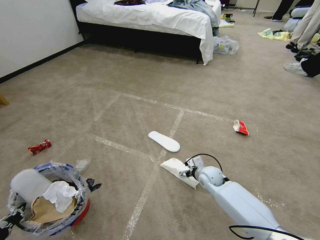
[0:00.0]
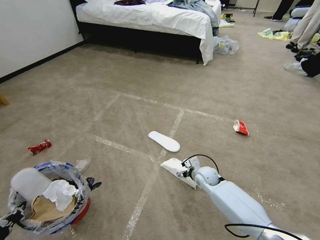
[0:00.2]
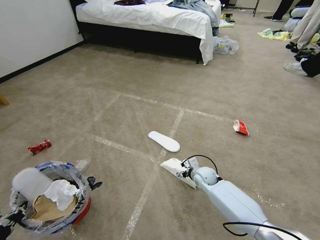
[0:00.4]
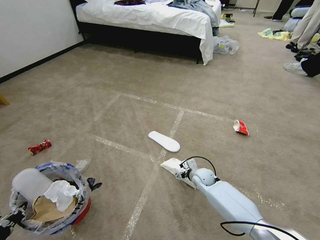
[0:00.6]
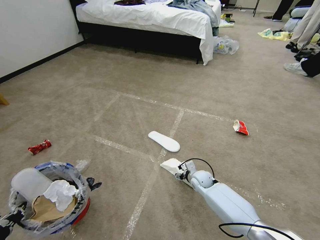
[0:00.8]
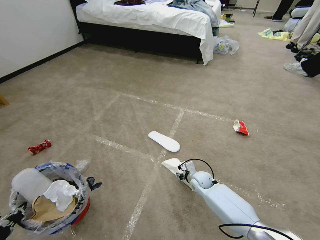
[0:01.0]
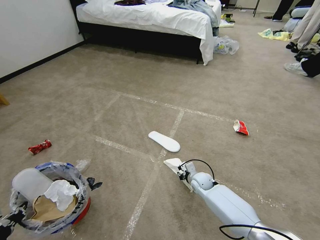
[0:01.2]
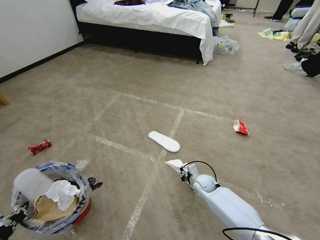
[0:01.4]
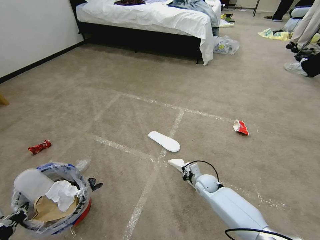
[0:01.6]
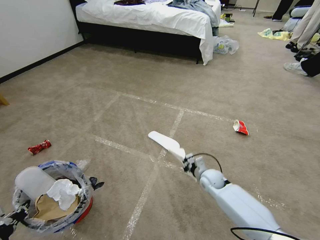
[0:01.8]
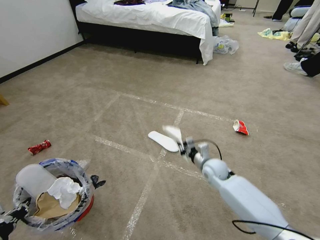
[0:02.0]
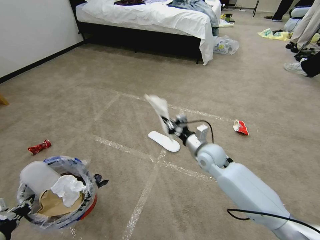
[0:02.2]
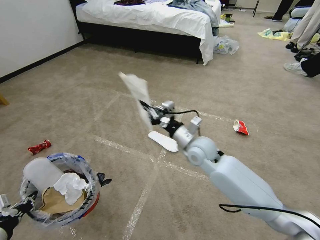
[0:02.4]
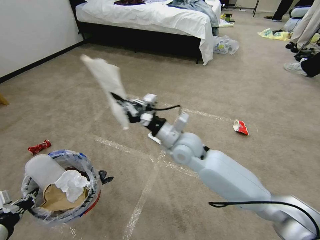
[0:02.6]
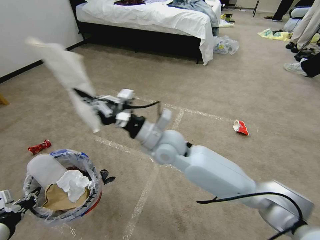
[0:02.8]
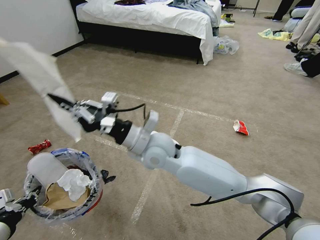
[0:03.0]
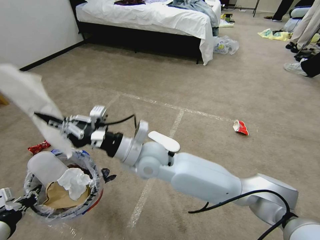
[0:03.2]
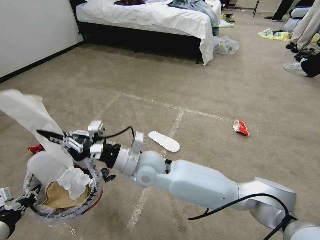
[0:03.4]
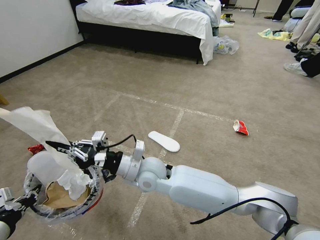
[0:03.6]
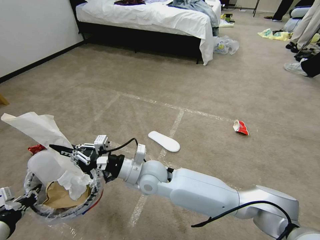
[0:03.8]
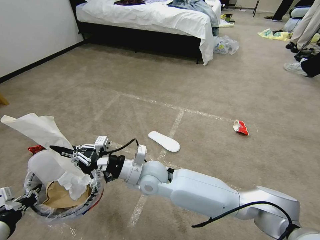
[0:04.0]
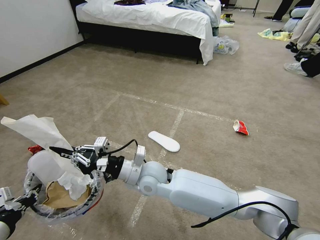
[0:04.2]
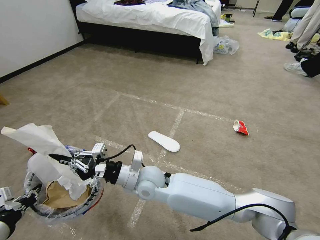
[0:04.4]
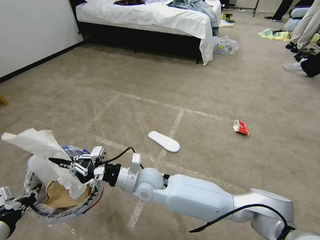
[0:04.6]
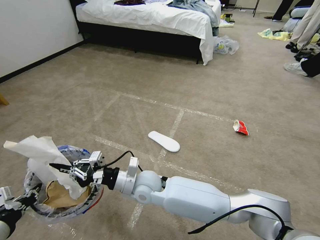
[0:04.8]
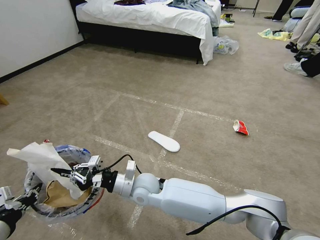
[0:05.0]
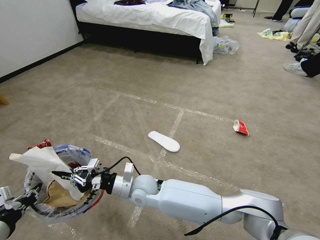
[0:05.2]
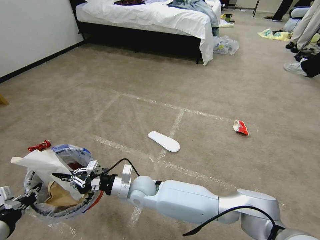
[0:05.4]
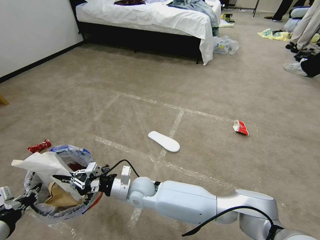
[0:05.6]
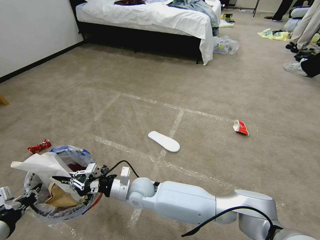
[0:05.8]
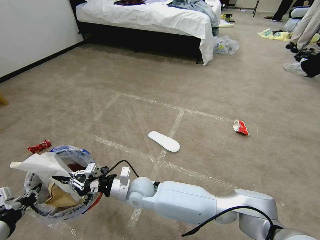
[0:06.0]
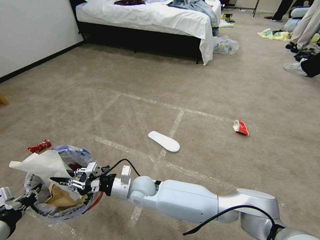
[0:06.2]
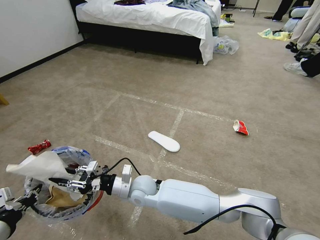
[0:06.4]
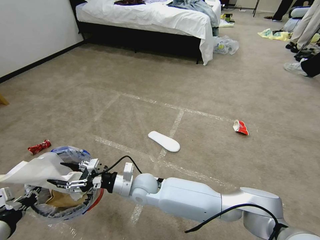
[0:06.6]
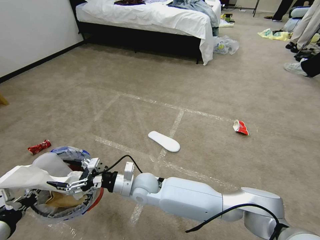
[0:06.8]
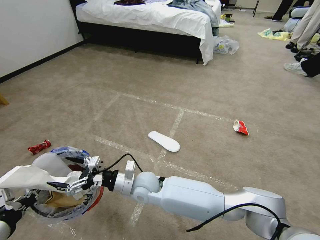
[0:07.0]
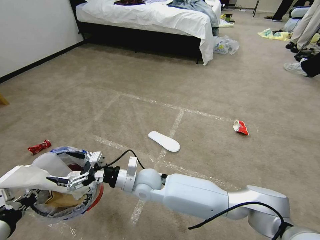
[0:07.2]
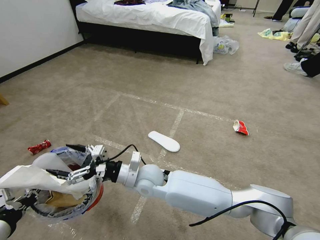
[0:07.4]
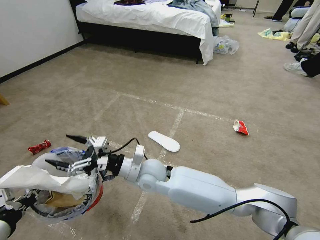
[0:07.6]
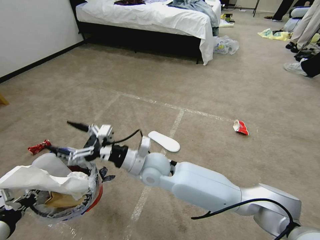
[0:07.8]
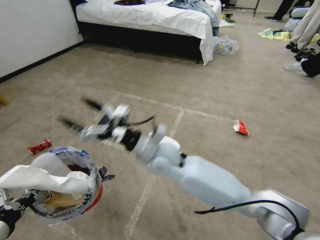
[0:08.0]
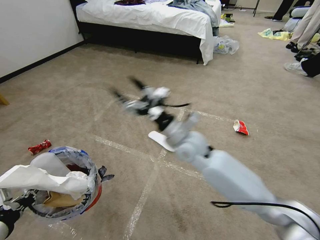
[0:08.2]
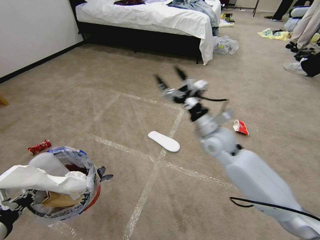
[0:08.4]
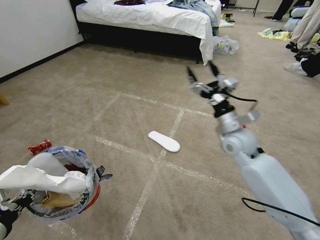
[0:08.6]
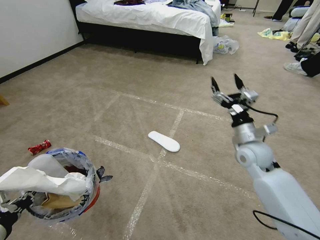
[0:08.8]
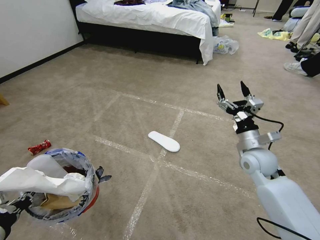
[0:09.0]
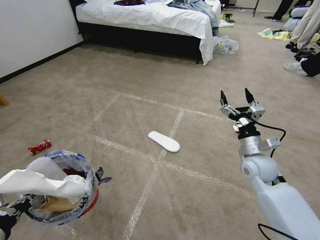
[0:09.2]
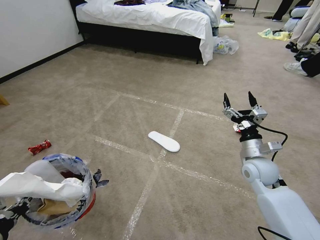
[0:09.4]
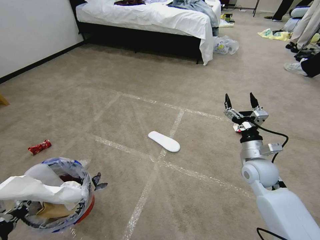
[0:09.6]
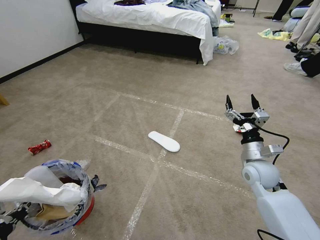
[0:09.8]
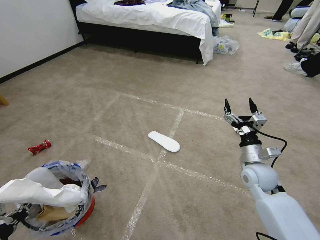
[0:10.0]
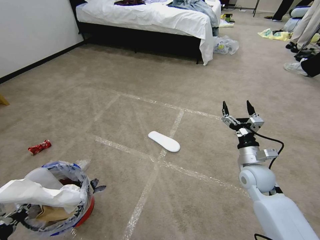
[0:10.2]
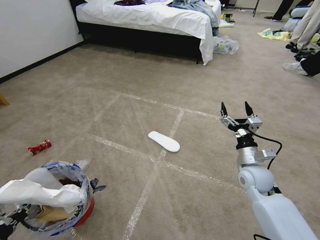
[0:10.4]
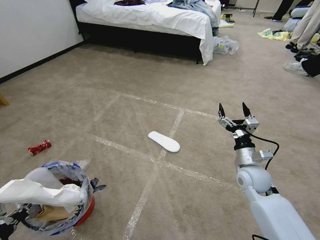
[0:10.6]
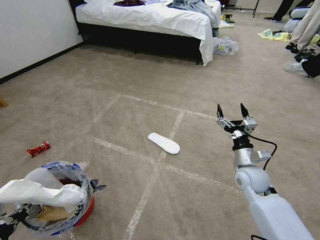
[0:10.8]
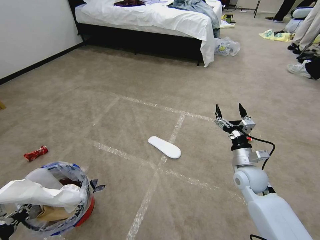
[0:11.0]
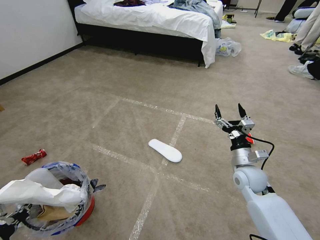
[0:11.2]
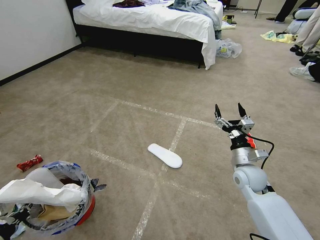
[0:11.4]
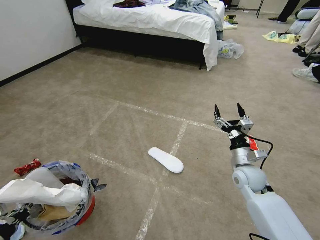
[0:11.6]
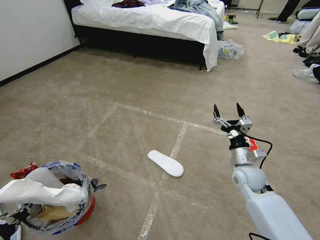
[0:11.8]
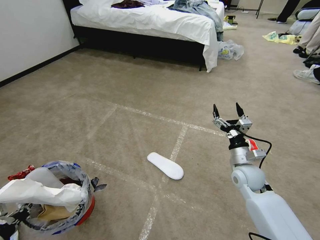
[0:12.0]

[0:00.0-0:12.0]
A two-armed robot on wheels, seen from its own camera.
Task of the whole recording: Pick up the trash bin and place the garbage on the floor into it.
0:00.0 to 0:01.6: The right gripper heads downward, covering about 5 cm, and closes.
0:01.6 to 0:03.0: The right gripper travels upward and to the left by some 40 cm, while the left gripper changes place by roughly 5 cm.
0:03.0 to 0:04.4: The right gripper is displaced downward by some 10 cm.
0:04.4 to 0:06.0: The right gripper moves downward, roughly 10 cm.
0:06.0 to 0:07.6: The right gripper goes approximately 10 cm upward, and opens.
0:07.6 to 0:09.0: The right gripper goes about 35 cm to the right.
0:09.0 to 0:10.4: The right gripper goes about 5 cm downward.

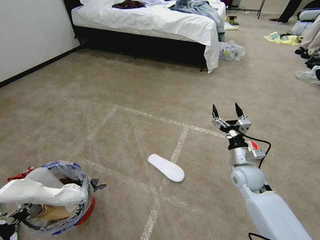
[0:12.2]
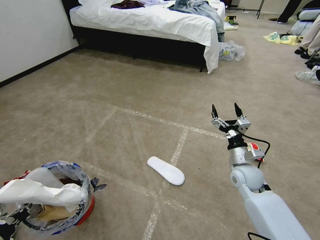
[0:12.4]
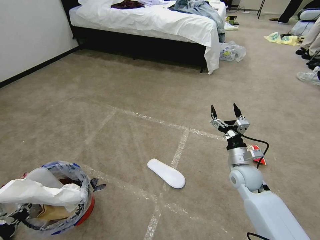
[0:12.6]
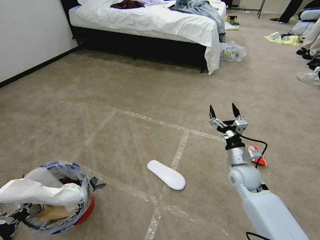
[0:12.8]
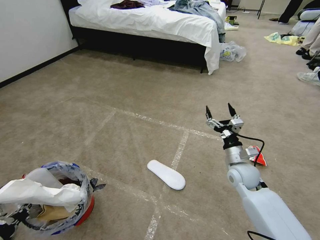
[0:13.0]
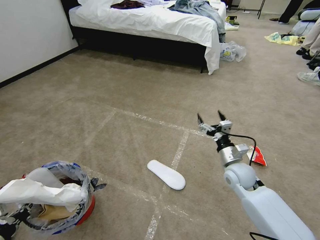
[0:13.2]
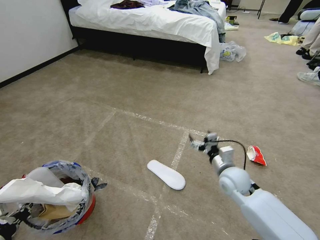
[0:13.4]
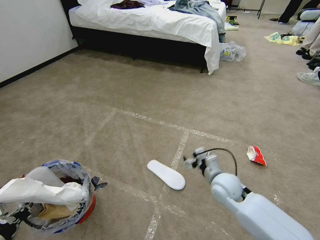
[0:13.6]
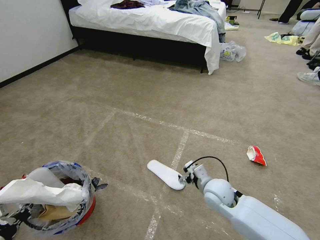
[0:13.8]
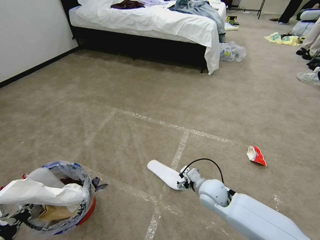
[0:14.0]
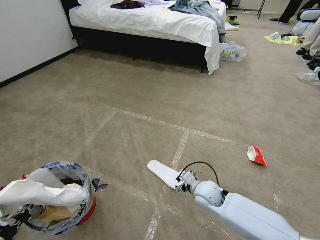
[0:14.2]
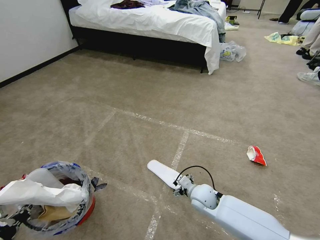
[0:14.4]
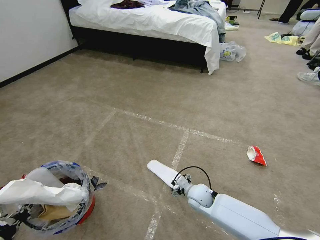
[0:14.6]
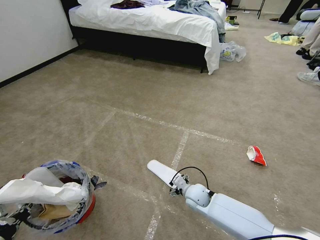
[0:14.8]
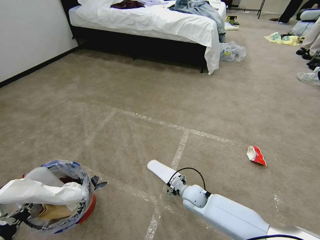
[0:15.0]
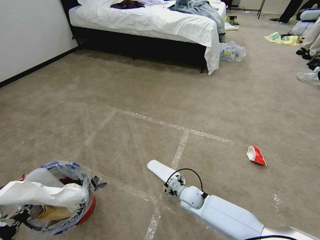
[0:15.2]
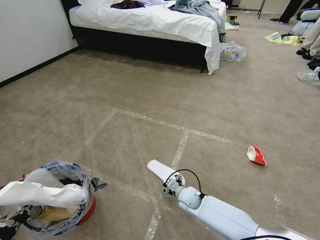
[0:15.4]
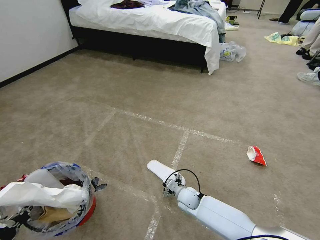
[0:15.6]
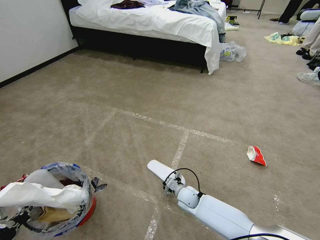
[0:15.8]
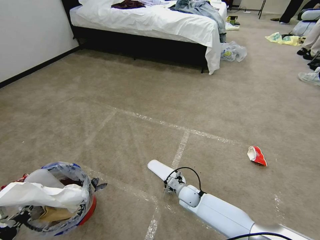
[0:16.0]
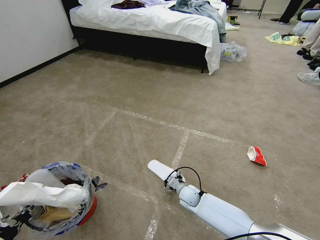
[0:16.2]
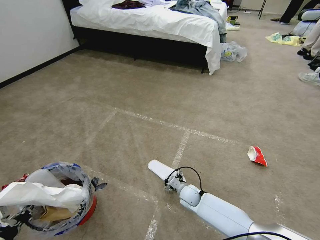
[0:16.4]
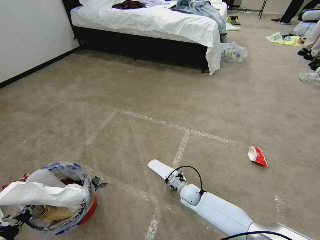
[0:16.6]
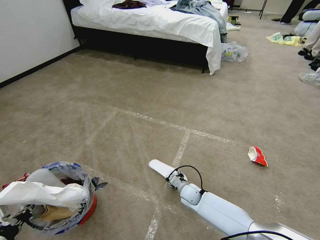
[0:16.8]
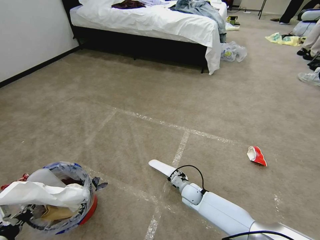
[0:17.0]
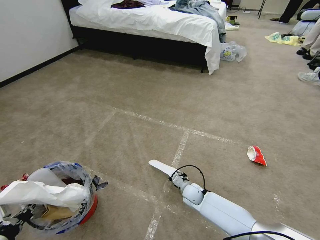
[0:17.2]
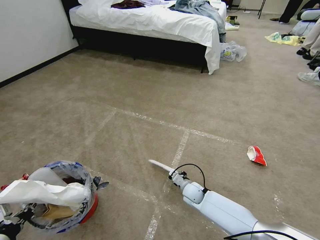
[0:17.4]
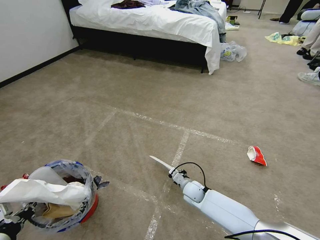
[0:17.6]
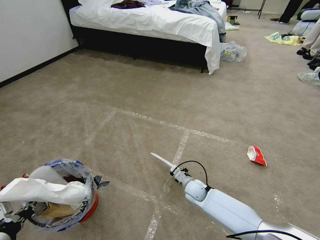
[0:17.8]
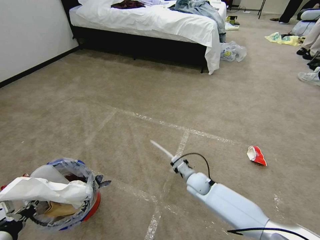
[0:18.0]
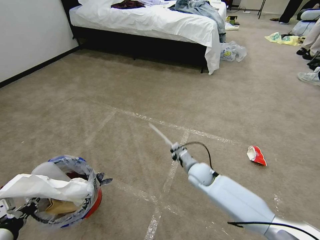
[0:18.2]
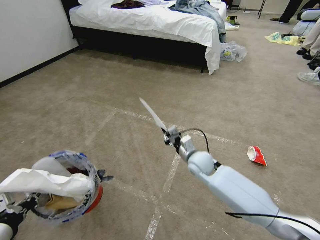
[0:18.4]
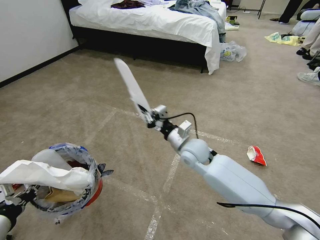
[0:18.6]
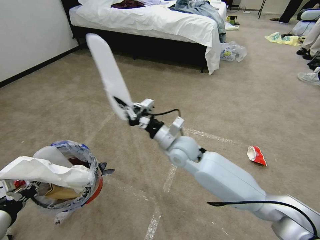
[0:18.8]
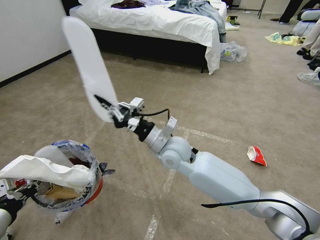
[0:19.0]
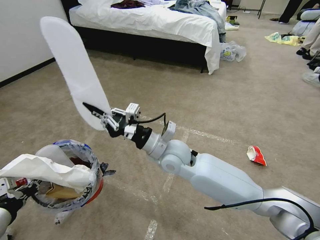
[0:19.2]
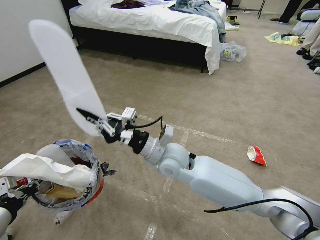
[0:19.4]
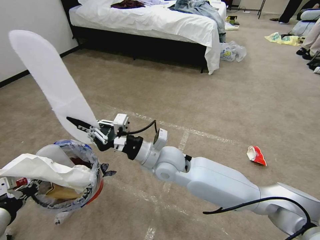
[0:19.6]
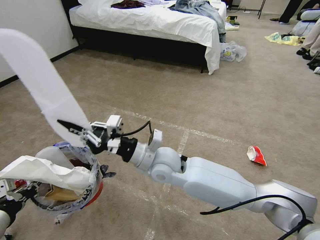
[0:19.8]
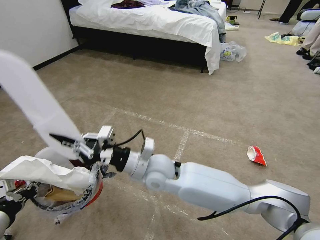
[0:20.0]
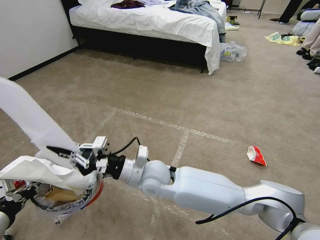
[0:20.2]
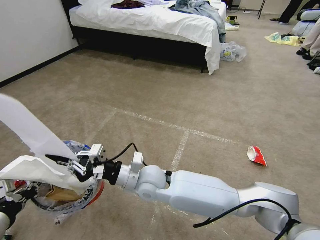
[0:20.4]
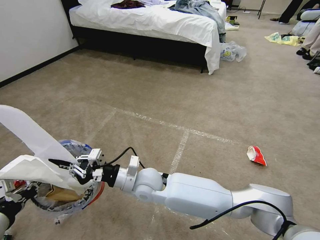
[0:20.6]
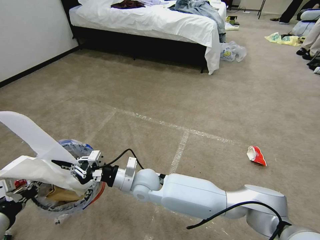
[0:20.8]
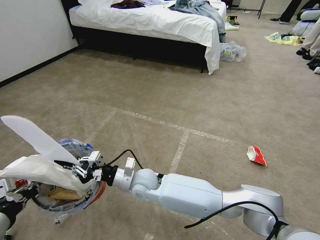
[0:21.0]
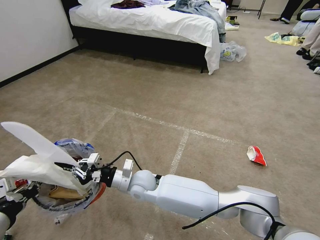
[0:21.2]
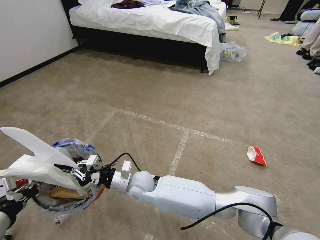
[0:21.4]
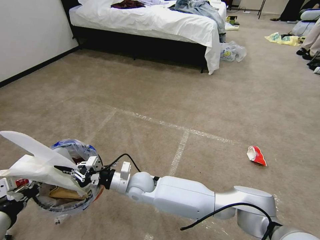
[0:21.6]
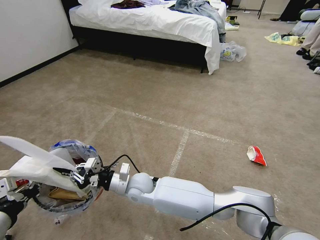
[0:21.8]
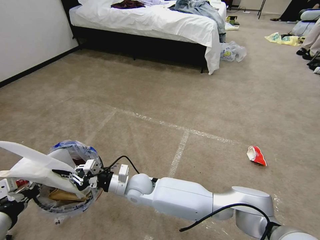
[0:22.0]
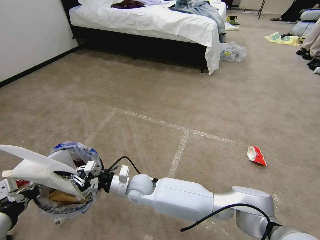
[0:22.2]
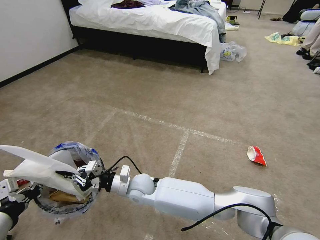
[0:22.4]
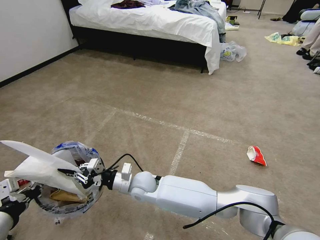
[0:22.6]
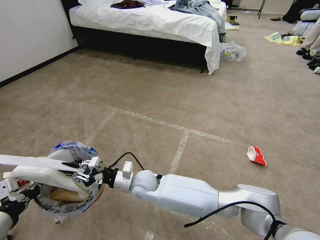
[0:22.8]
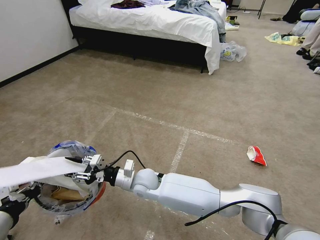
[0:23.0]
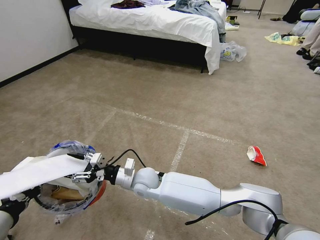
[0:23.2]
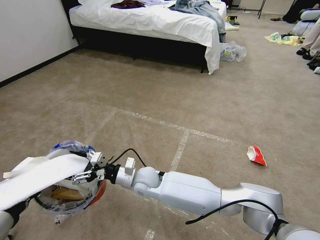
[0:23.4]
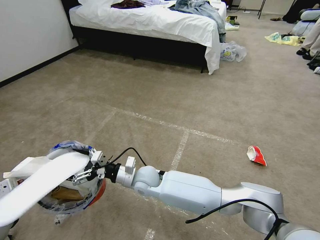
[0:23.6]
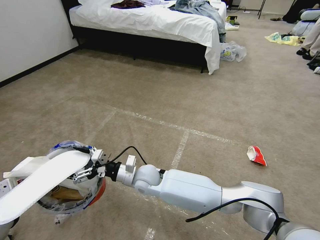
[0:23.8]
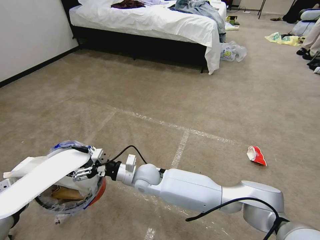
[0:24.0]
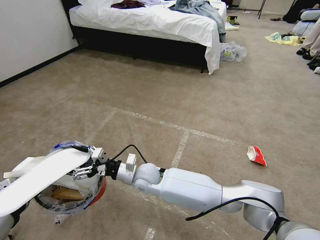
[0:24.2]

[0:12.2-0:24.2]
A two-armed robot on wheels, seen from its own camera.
Task of the whole recording: Pick up the trash bin and place the garbage on the floor into it.
0:12.2 to 0:13.8: The right gripper is displaced to the left by approximately 10 cm.
0:13.8 to 0:15.2: The right gripper heads downward and to the left, covering roughly 15 cm.
0:15.2 to 0:16.6: The grippers move only a little.
0:16.6 to 0:18.2: The right gripper travels upward by some 15 cm, and closes up.
0:18.2 to 0:19.8: The left gripper changes place by some 5 cm. Meanwhile the right gripper travels upward and to the left by some 25 cm.
0:19.8 to 0:21.2: The right gripper moves downward and to the left, roughly 15 cm.
0:21.2 to 0:22.6: The grippers stay close to where they were, moving slightly.
0:22.6 to 0:24.2: The right gripper opens up.
